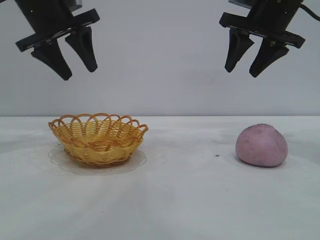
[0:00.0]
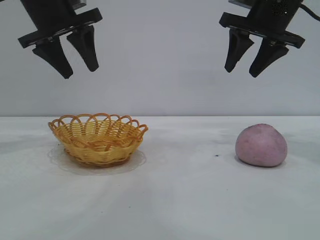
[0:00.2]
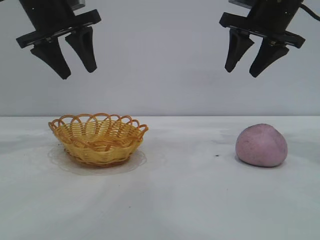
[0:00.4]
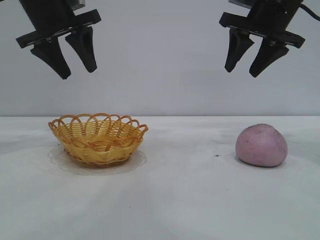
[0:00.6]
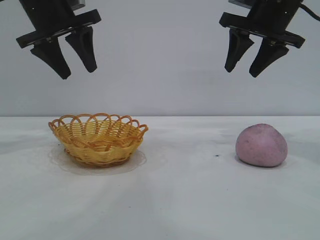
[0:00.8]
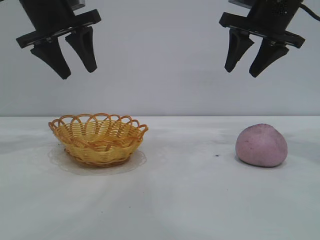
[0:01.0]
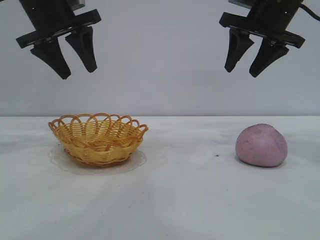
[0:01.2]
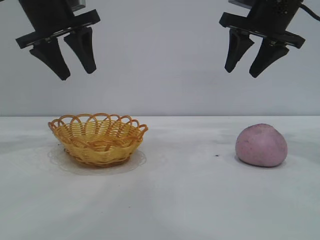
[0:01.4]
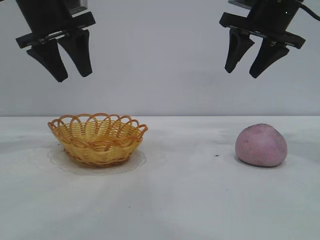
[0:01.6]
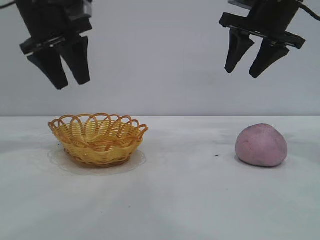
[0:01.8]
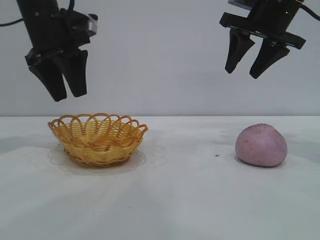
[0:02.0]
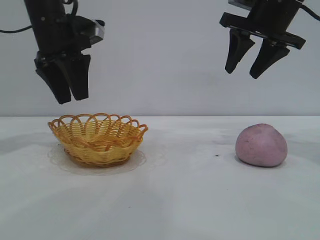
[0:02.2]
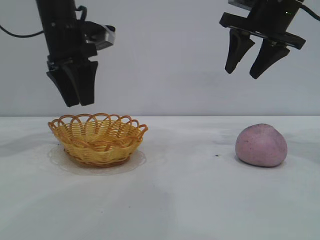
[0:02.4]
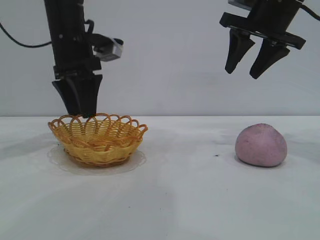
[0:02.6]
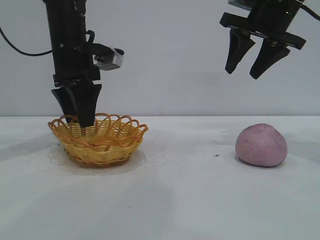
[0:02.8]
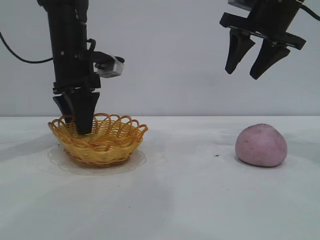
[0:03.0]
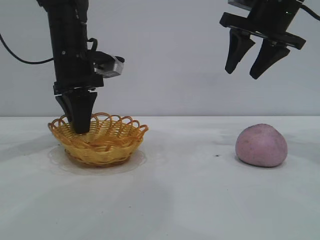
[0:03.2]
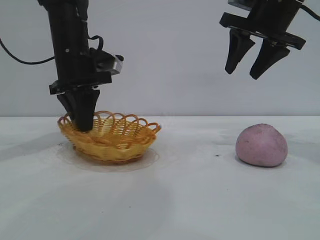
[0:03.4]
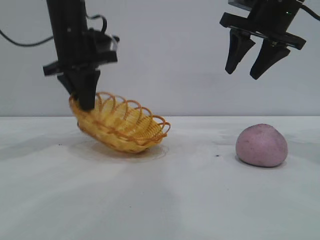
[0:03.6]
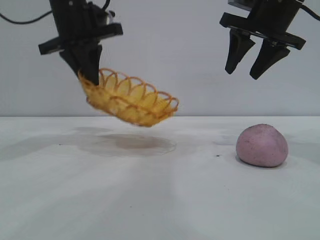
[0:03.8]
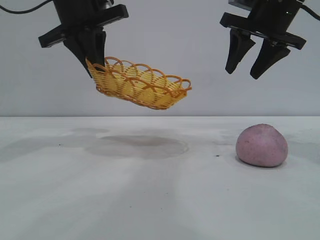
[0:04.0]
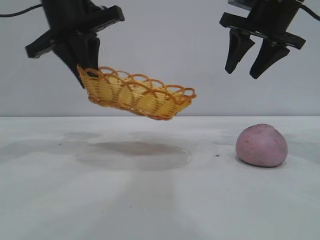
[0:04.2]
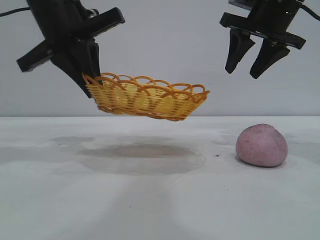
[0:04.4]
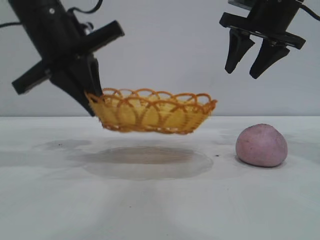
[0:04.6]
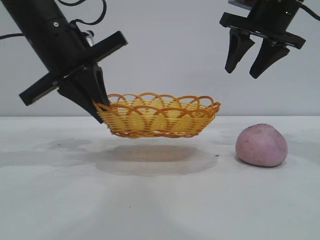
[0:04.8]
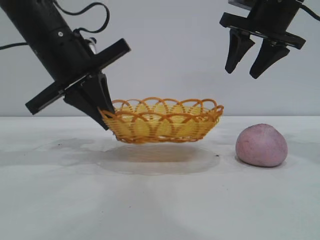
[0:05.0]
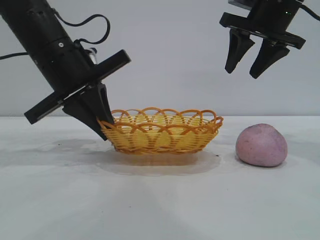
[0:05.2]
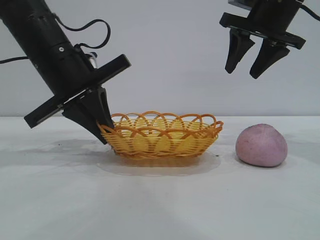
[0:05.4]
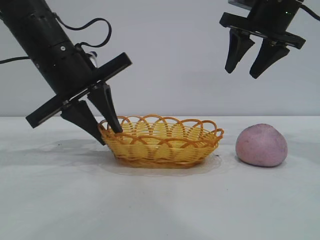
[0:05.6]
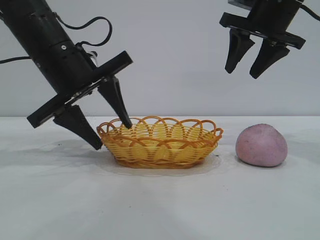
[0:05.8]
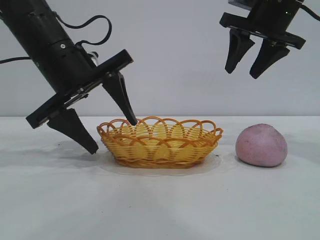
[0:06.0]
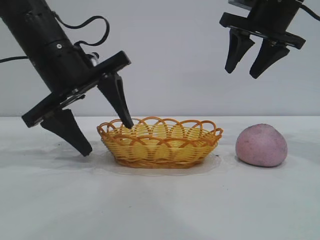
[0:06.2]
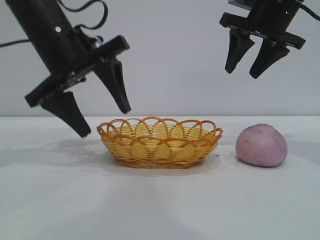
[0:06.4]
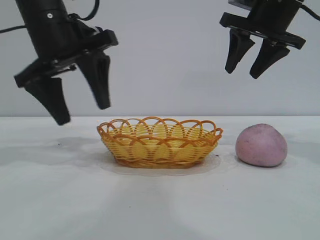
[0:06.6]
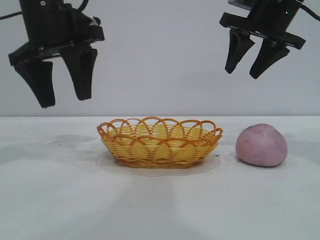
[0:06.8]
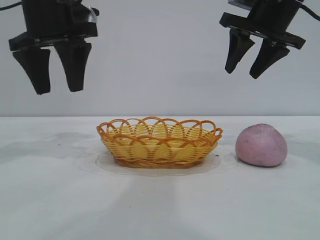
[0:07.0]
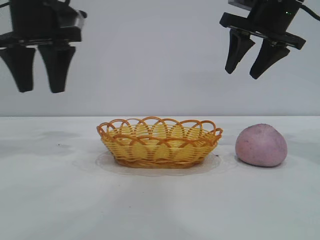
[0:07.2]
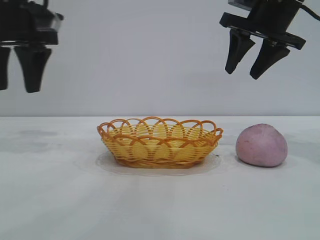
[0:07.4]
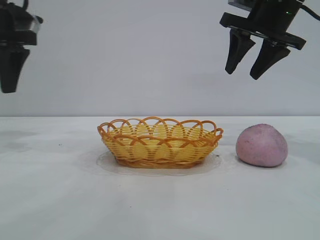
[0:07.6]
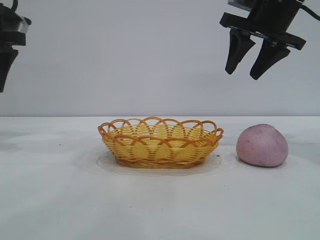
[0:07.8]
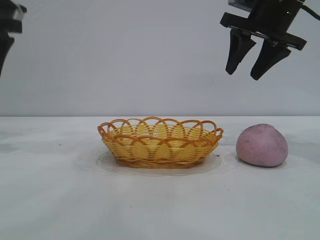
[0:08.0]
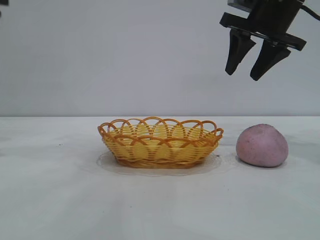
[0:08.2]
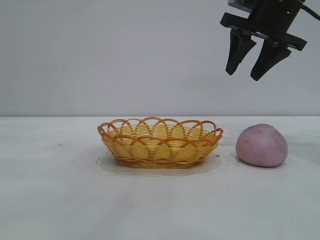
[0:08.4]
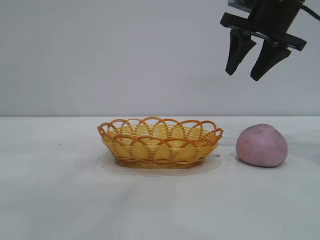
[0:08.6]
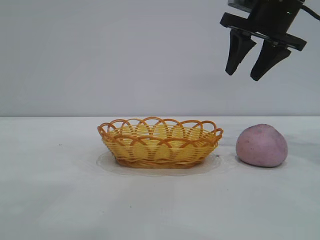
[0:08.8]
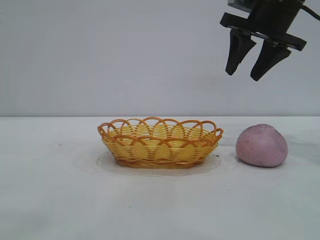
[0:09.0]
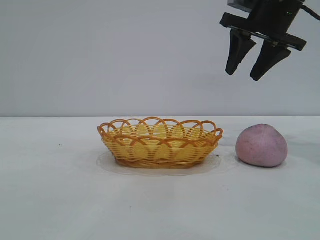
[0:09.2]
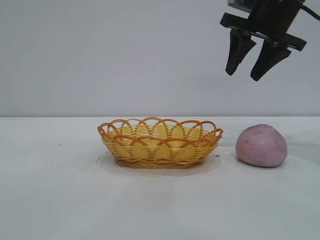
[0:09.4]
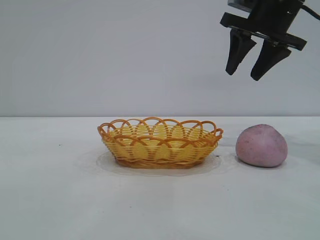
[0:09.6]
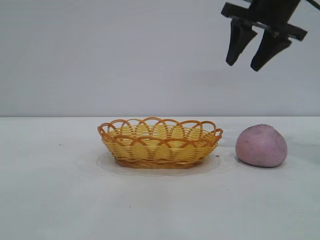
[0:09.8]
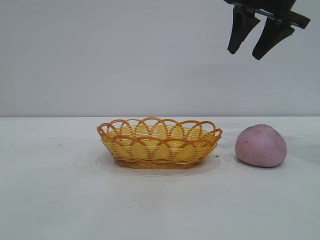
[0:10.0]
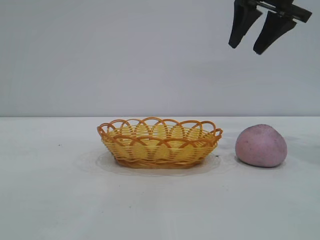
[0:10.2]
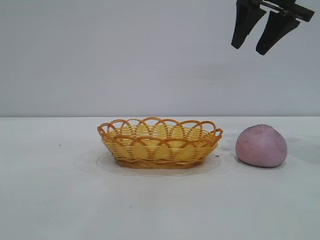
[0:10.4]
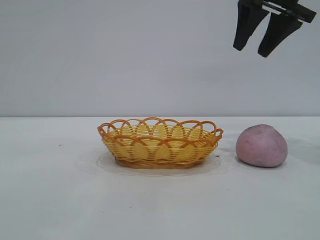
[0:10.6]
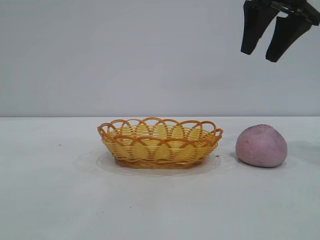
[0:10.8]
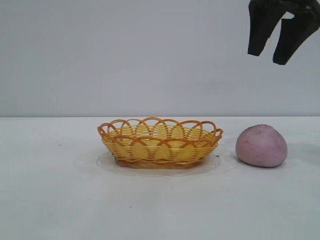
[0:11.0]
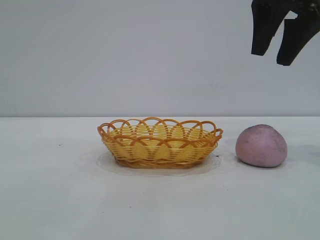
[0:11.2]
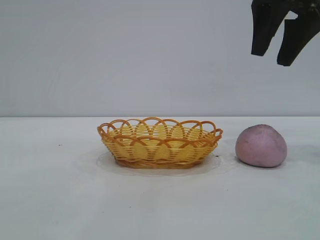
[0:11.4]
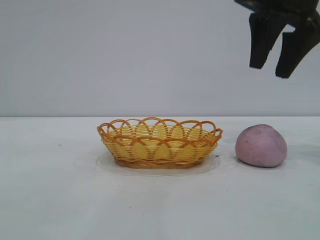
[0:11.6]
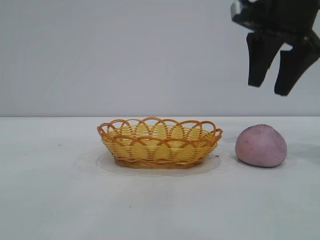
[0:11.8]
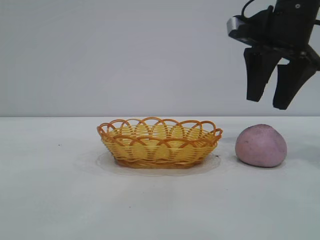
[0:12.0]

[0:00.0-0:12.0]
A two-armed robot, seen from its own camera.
Task of the whole recording: pick up the peach and put it into the basket.
Step, 0:00.0 to 0:06.2: Move the basket to the center of view.

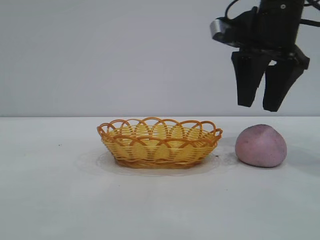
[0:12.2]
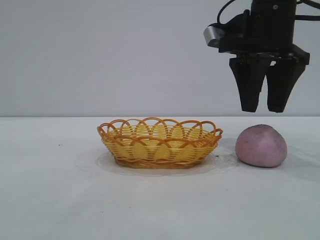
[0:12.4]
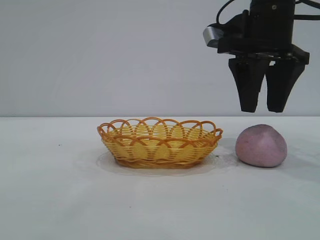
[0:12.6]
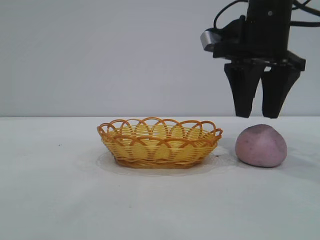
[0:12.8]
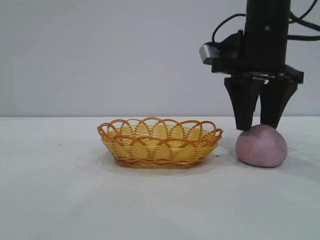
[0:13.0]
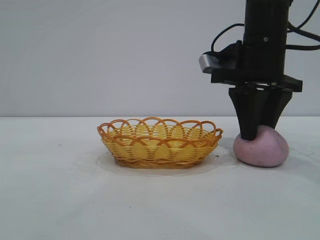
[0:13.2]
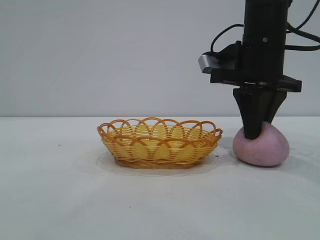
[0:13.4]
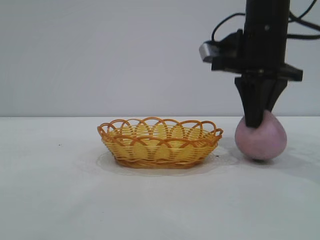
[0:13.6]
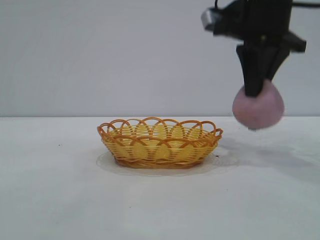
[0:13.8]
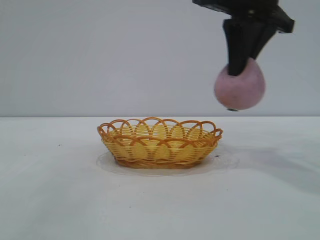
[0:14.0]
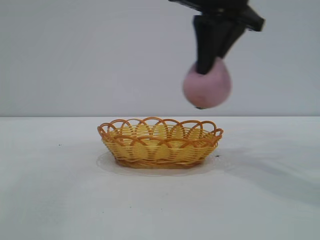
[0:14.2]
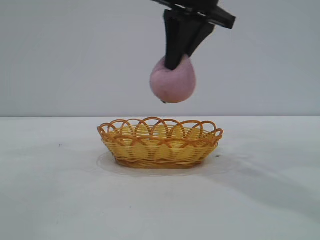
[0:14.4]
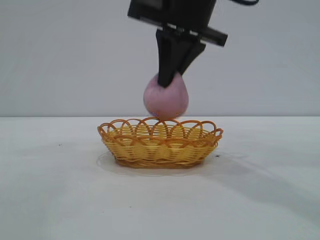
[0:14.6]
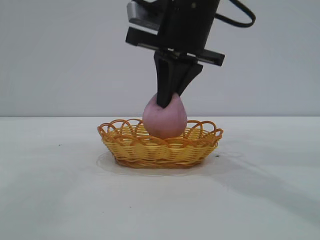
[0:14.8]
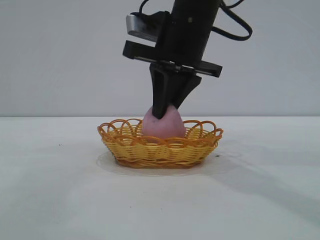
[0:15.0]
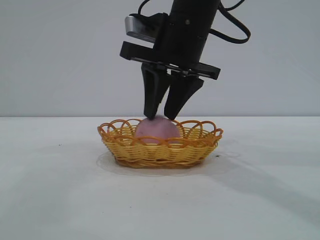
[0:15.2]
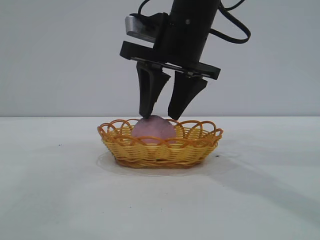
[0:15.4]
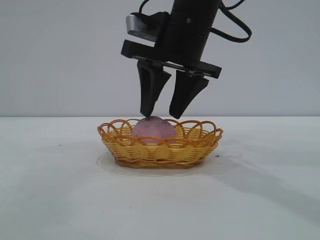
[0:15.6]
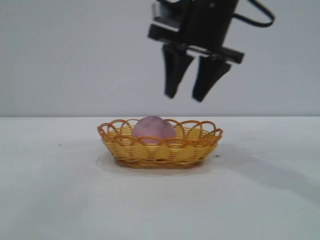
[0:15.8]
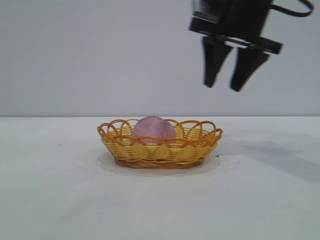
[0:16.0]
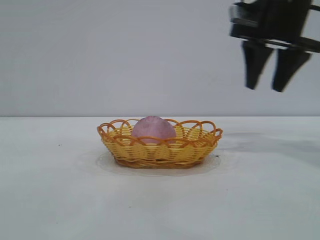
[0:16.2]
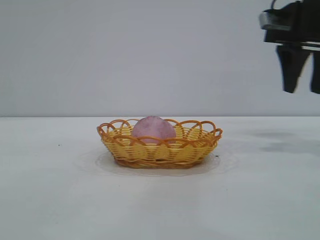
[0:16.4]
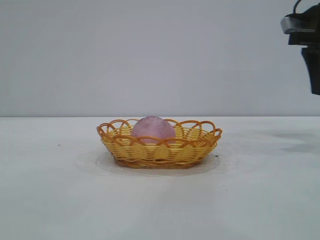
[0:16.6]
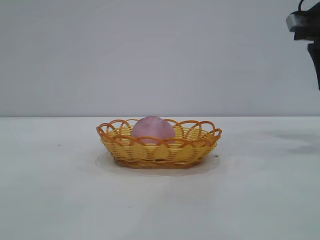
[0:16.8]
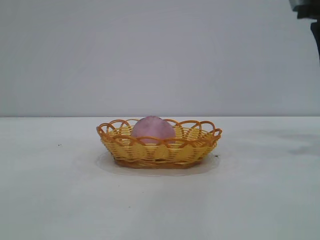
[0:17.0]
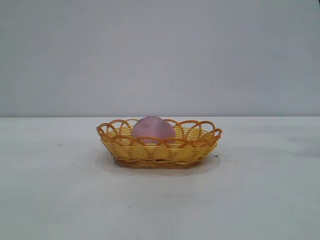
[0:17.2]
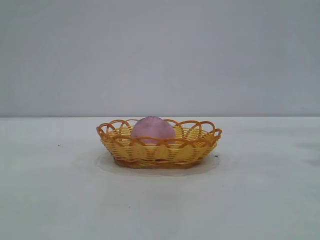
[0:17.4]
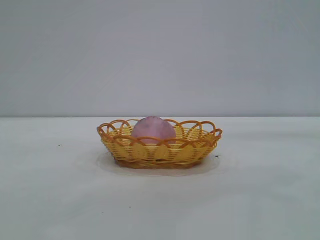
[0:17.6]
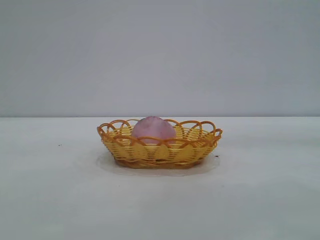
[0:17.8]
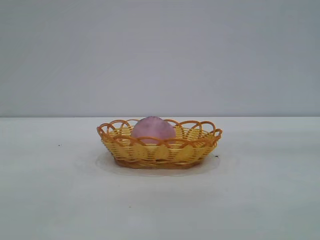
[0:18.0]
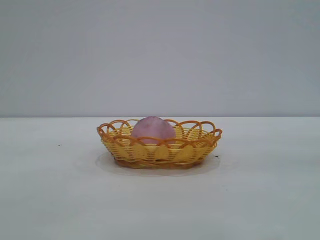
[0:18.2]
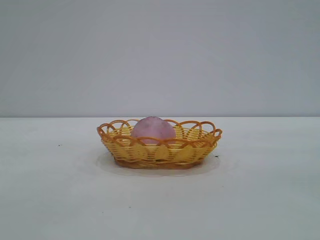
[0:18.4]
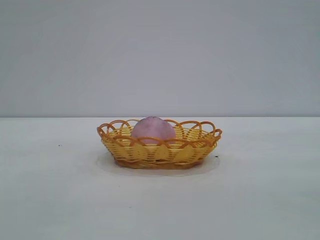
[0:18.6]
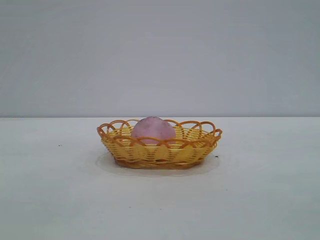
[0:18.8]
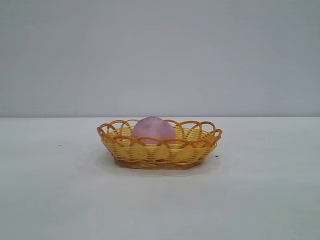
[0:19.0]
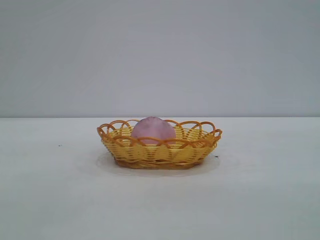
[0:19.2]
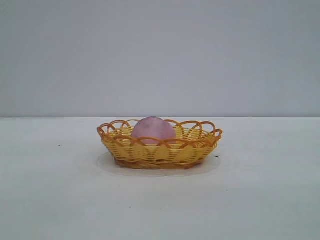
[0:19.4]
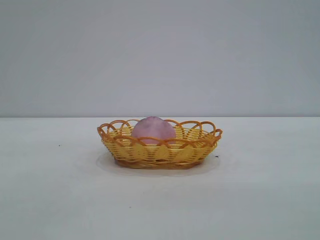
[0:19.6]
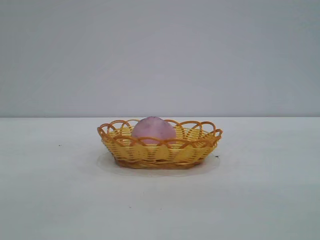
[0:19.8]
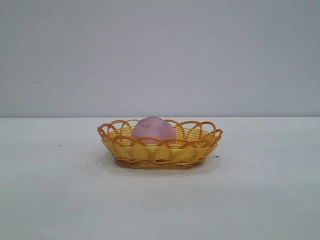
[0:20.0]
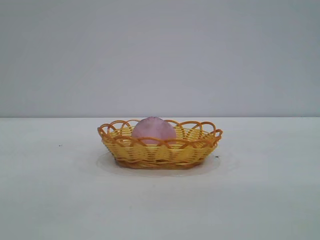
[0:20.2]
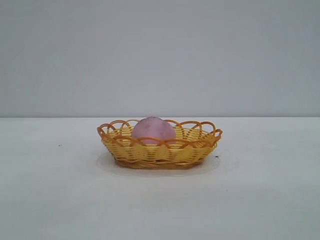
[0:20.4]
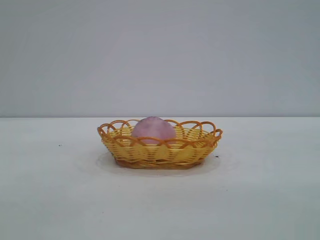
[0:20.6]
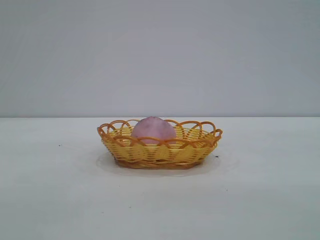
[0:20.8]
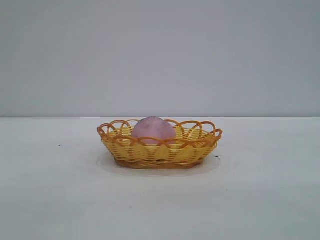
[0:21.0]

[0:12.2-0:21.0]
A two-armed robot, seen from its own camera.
Task of the whole recording: pick up the peach and put it into the basket.
Step, 0:13.8 to 0:15.8: place the peach into the basket.
